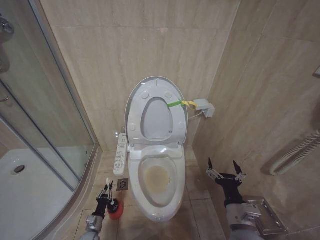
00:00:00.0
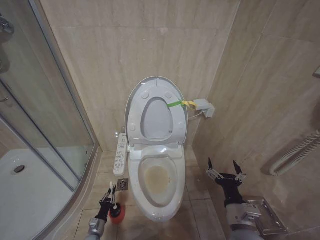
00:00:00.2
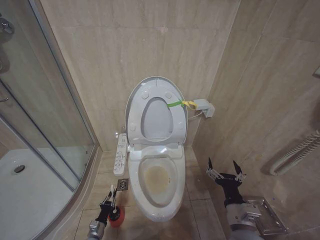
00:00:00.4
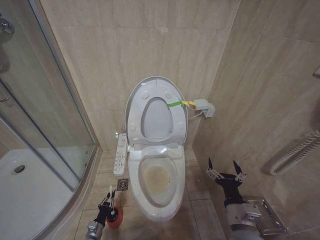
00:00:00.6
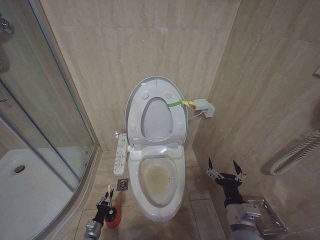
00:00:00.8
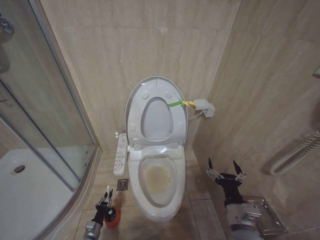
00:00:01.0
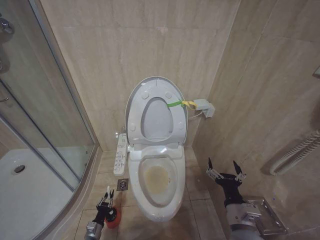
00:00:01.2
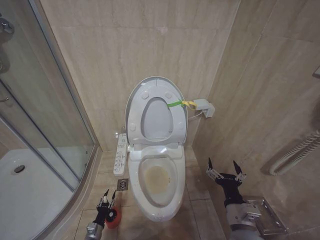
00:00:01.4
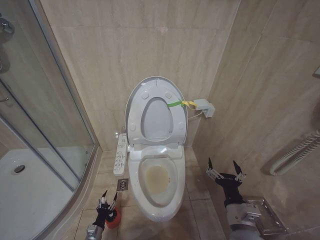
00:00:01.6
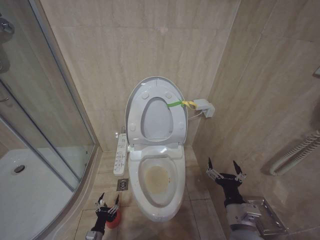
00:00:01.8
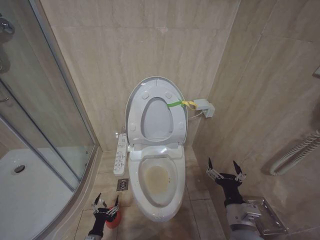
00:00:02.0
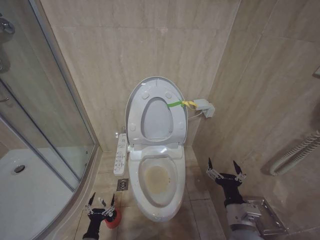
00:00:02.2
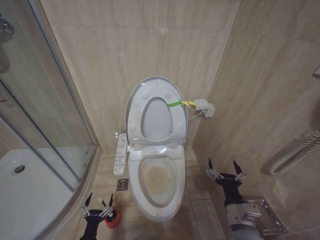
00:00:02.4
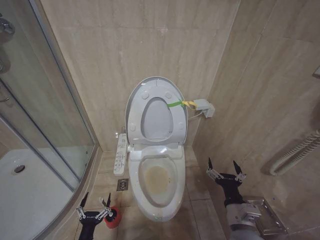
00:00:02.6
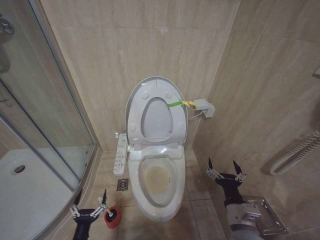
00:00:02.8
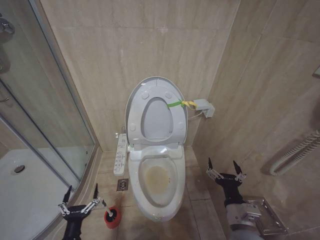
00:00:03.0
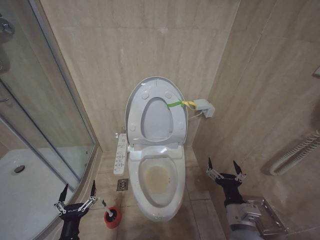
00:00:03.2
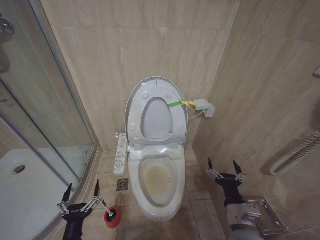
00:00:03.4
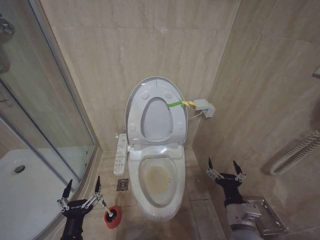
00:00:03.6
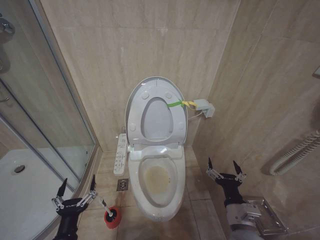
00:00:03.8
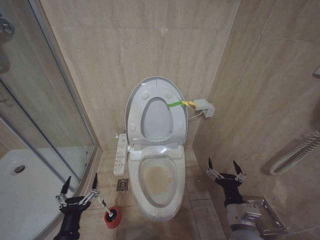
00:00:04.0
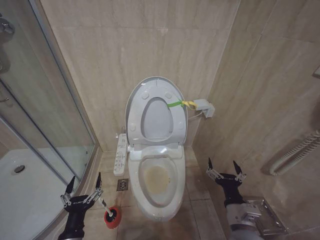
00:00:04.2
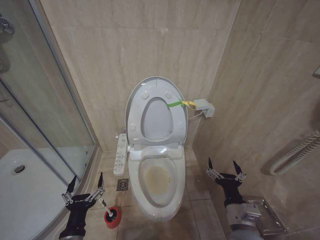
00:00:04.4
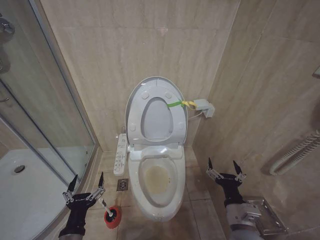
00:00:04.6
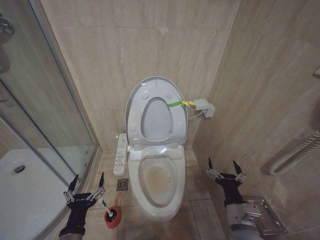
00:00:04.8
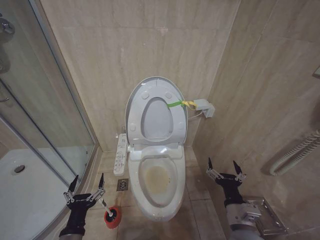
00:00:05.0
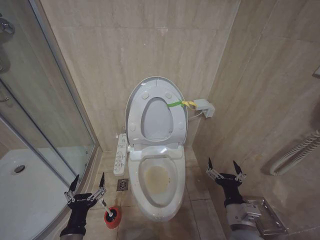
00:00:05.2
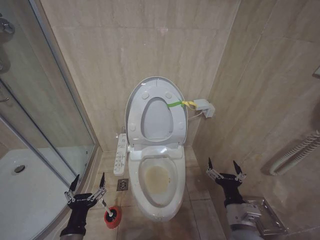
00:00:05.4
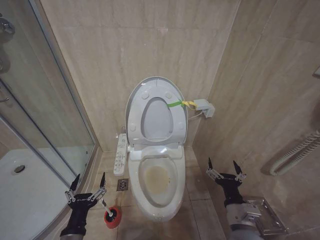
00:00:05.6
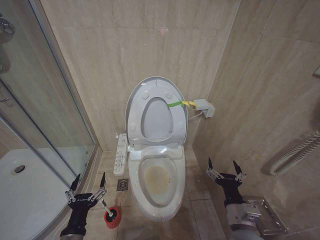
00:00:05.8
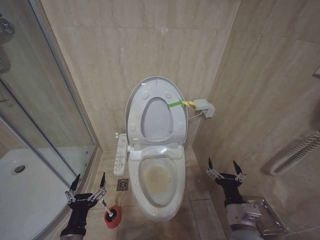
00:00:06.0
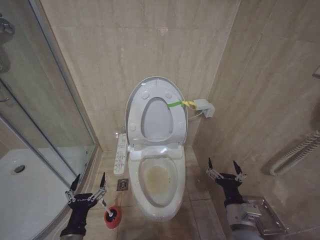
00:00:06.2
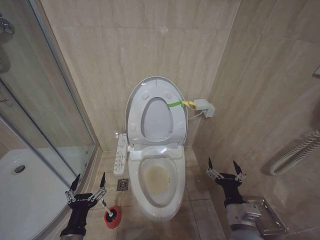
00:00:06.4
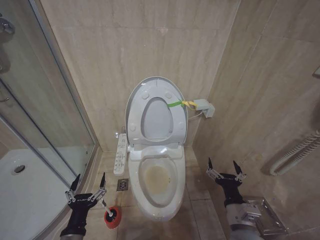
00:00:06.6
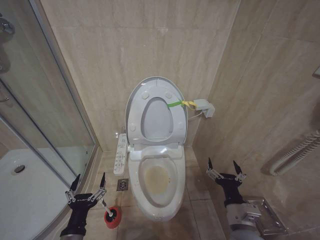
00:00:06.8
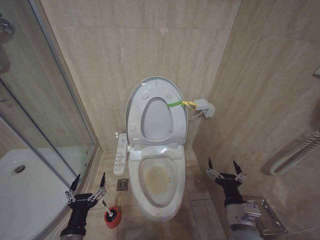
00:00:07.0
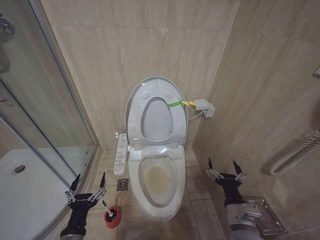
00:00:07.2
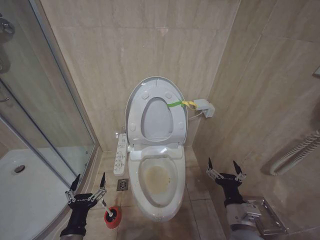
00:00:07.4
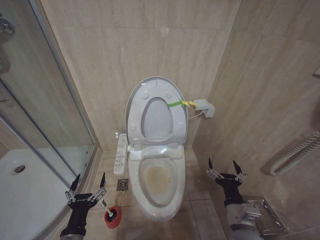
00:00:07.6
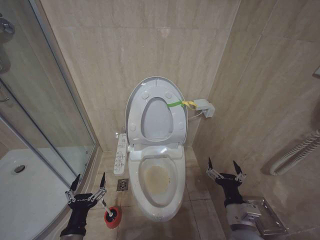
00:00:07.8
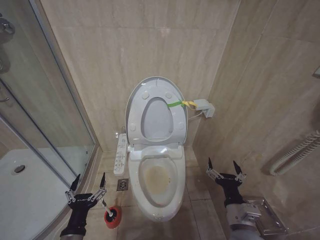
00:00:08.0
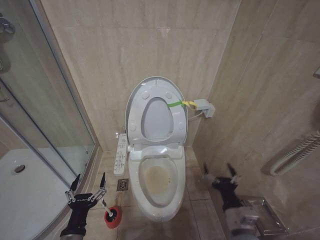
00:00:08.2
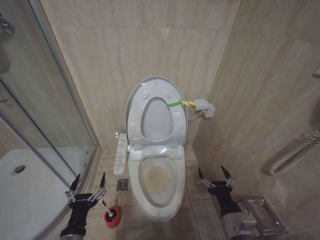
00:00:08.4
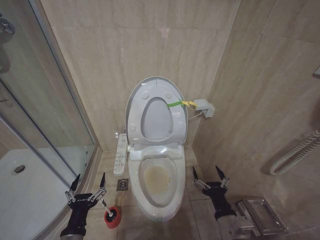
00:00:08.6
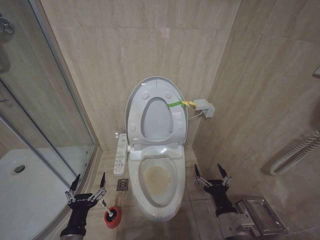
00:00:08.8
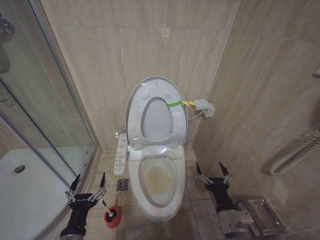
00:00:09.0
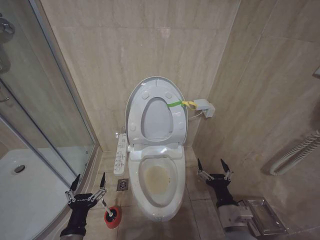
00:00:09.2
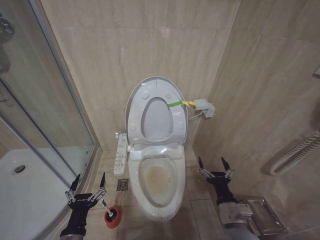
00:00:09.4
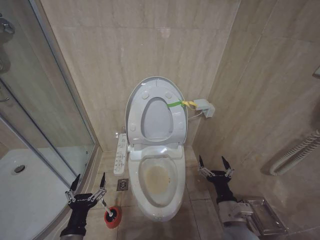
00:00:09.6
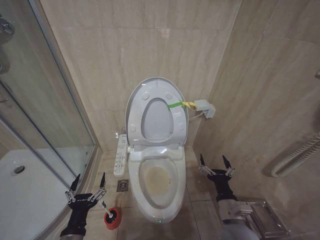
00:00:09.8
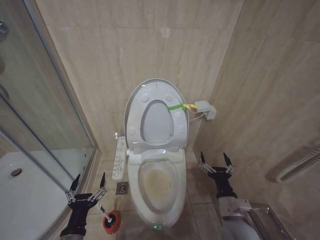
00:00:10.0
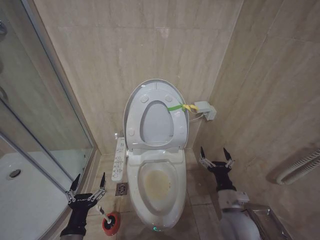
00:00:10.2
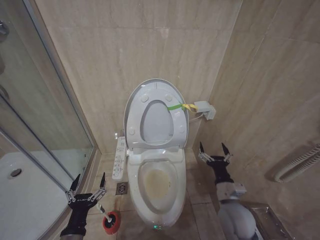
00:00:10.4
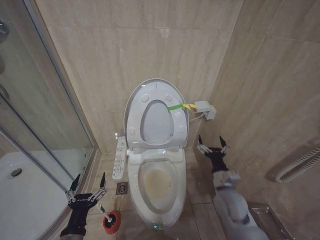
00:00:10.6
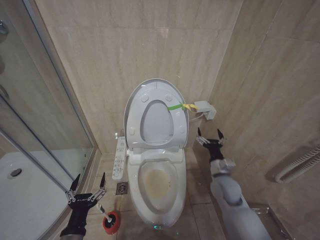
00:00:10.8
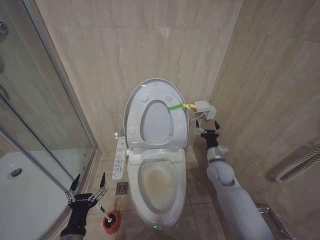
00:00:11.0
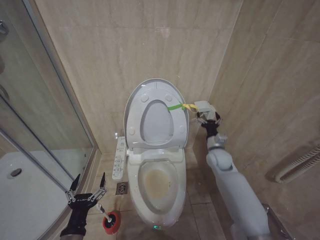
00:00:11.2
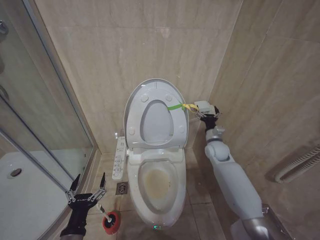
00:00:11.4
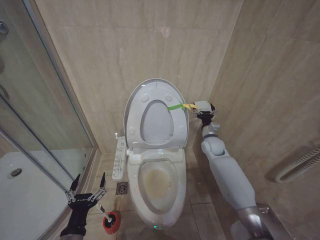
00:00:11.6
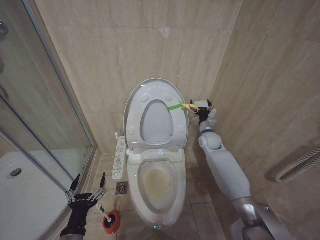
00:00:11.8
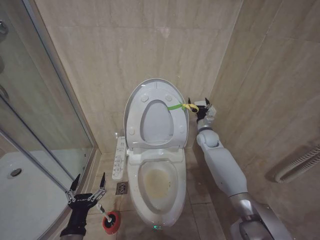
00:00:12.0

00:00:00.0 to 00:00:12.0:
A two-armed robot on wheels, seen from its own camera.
Task of the whole recording: Open the toilet lid, clean the toilet bowl with a toilet brush, close the toilet lid, and flush.
00:00:00.0 to 00:00:01.6: The grippers stay close to where they were, moving slightly.
00:00:01.6 to 00:00:03.0: The left gripper is displaced upward and backward by roughly 20 cm, and opens up.
00:00:03.0 to 00:00:04.4: The left gripper shifts roughly 10 cm upward.
00:00:04.4 to 00:00:07.6: Both grippers stay about where they are.
00:00:07.6 to 00:00:09.0: The grippers make only small movements.
00:00:09.0 to 00:00:10.4: The right gripper is displaced forward by about 10 cm.
00:00:10.4 to 00:00:12.0: The right gripper shifts some 30 cm forward.

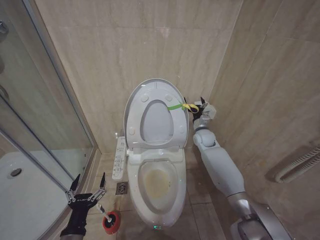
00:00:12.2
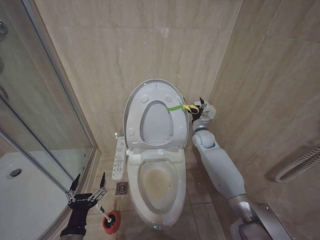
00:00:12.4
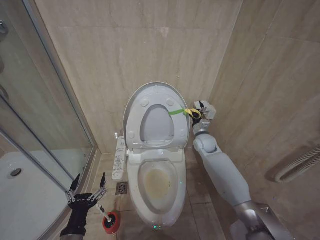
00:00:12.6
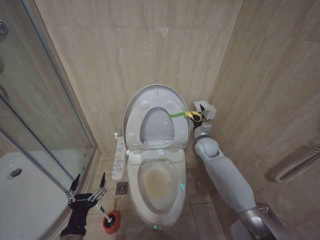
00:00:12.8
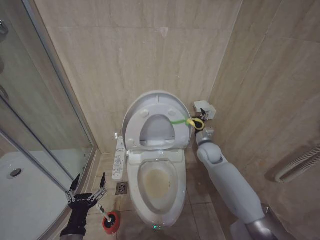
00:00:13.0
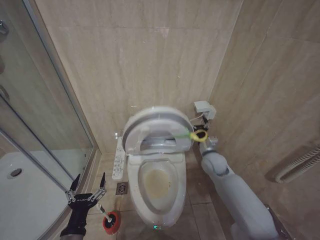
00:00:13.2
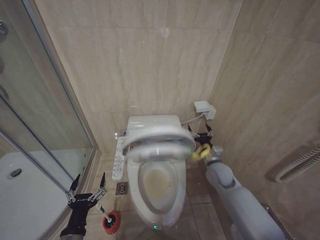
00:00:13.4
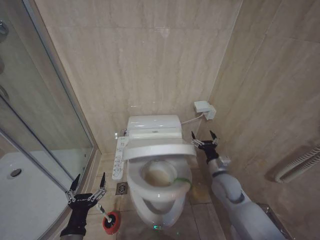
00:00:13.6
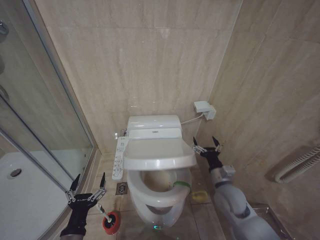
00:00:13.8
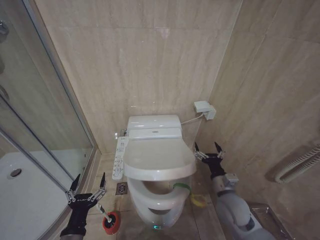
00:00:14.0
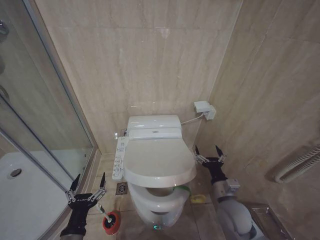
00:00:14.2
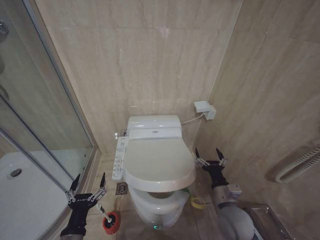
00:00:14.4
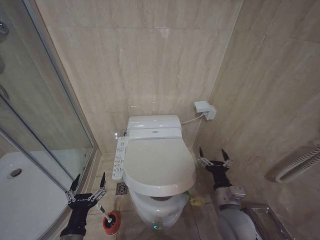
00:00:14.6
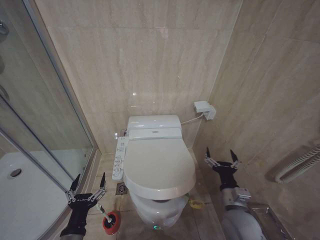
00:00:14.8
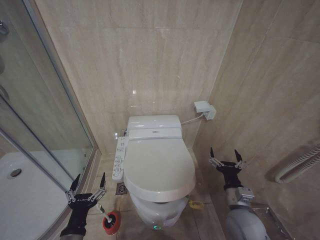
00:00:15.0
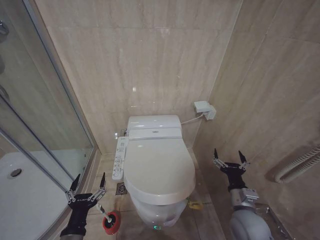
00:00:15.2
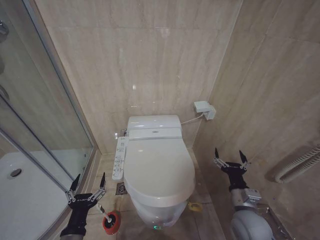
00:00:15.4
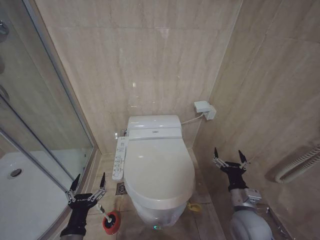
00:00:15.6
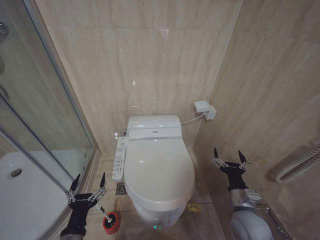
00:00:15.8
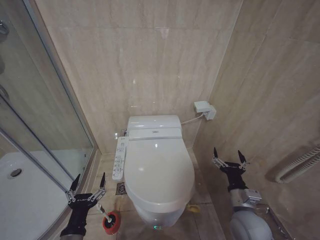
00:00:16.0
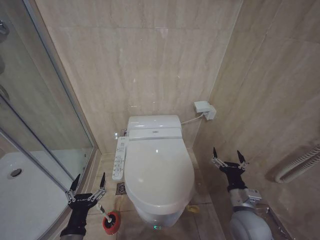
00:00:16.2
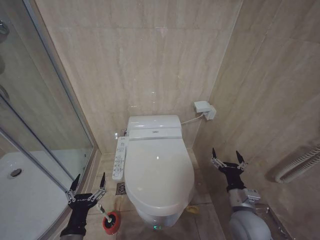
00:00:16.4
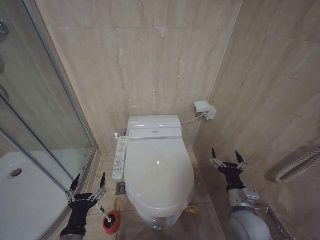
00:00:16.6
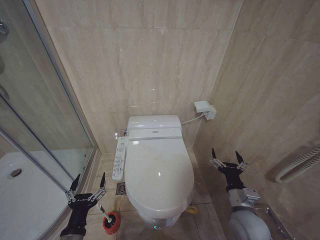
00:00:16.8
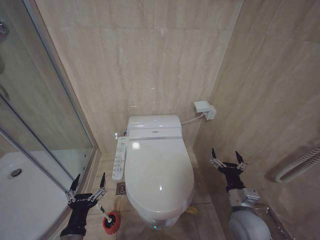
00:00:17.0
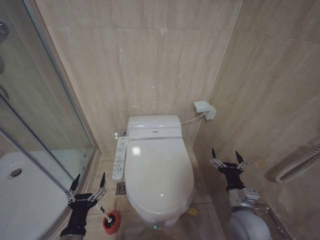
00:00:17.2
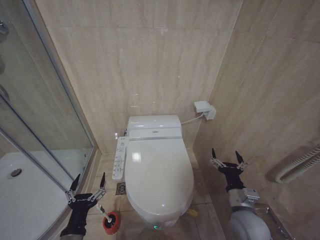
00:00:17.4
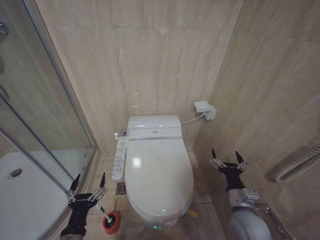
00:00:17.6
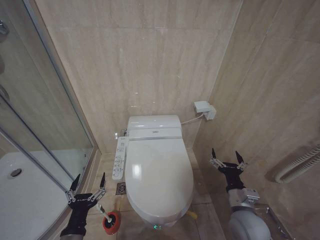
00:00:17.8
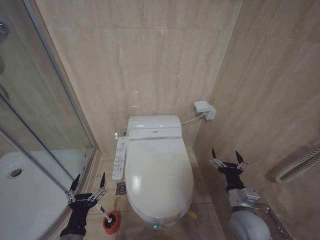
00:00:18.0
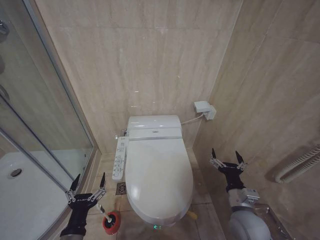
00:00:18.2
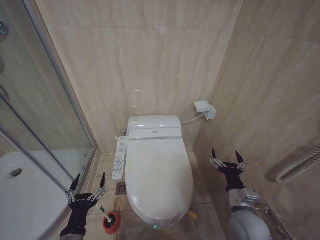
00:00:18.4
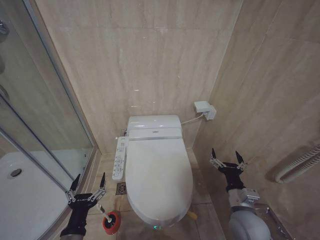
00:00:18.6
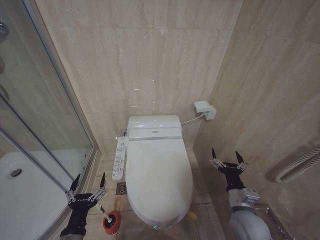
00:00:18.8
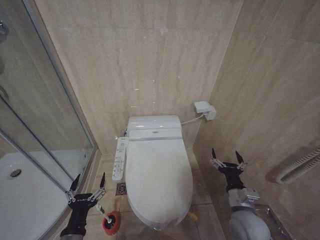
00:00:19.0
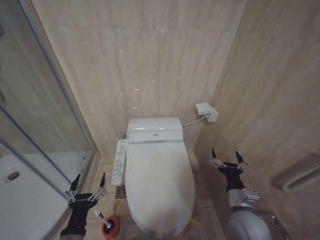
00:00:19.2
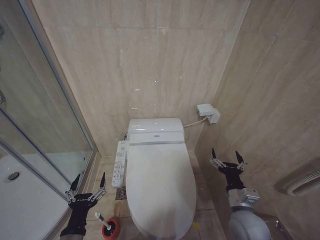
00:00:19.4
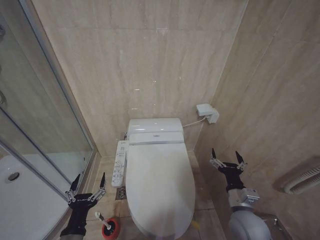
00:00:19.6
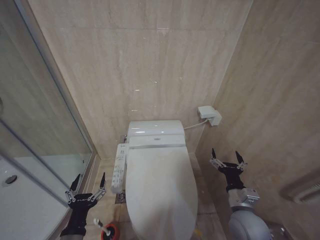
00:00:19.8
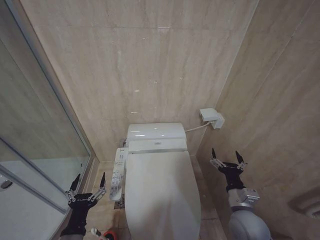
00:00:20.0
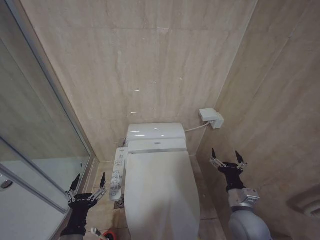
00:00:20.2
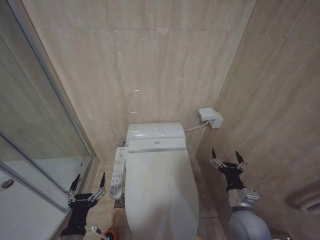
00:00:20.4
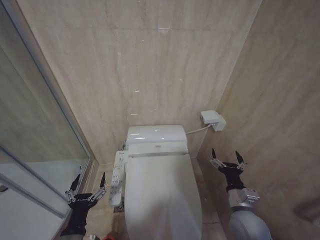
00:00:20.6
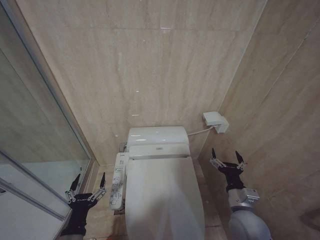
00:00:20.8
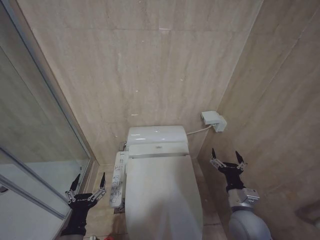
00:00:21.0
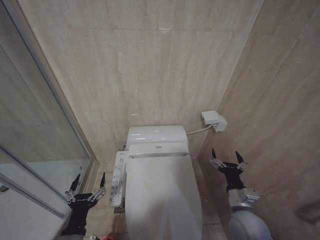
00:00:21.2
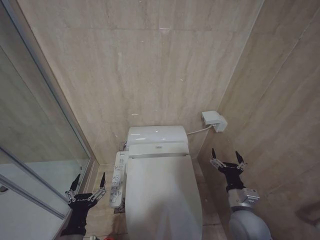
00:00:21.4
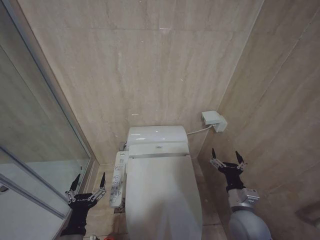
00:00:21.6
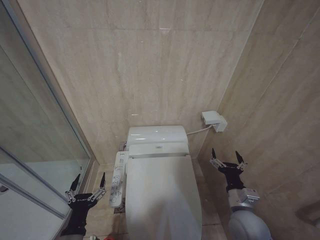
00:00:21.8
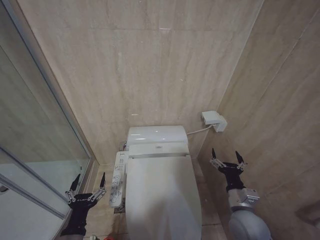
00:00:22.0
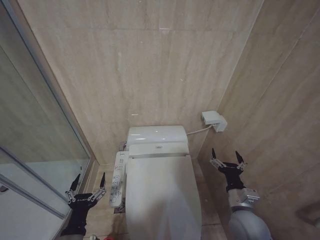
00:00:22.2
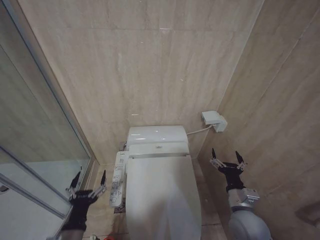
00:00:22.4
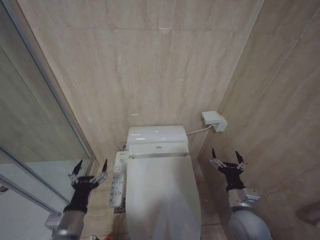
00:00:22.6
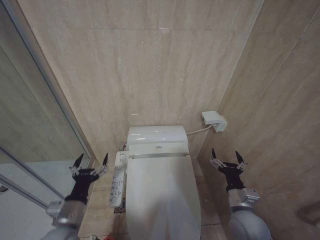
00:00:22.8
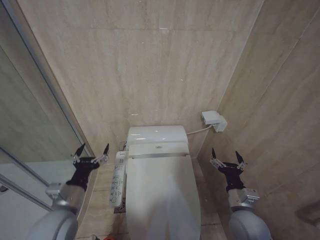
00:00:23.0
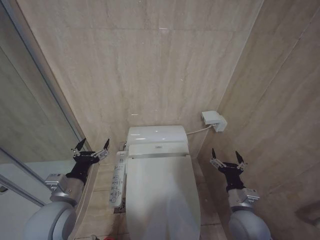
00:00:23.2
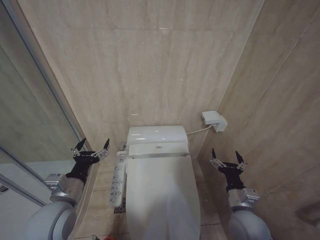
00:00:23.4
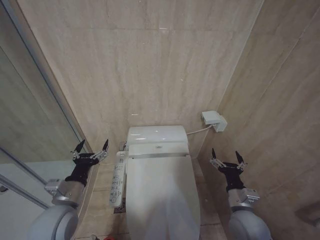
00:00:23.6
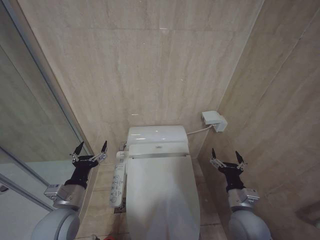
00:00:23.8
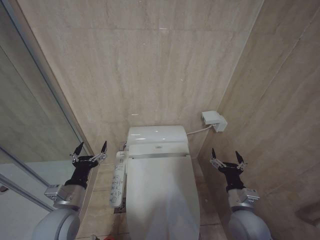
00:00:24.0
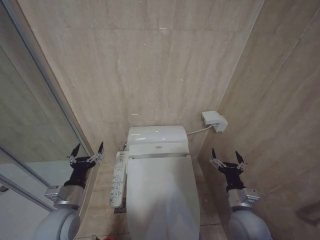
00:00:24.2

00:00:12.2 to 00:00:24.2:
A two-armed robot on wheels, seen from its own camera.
Task of the whole recording: Open the toilet lid, clean the toilet bowl with a toilet brush, close the toilet lid, and flush.
00:00:12.2 to 00:00:13.8: The right gripper is displaced backward by approximately 20 cm.
00:00:13.8 to 00:00:15.2: The right gripper goes about 10 cm backward.
00:00:15.2 to 00:00:21.2: Both grippers stay put.
00:00:21.2 to 00:00:22.6: The grippers make only small movements.
00:00:22.6 to 00:00:24.2: The left gripper travels forward by about 10 cm, and travels upward and back again, about 10 cm each way.
